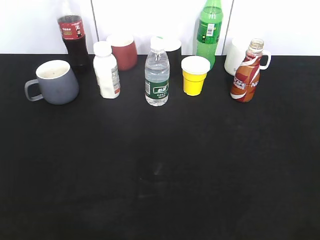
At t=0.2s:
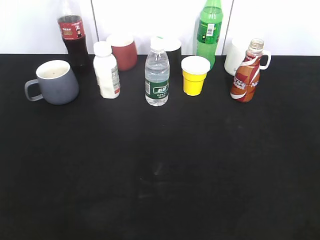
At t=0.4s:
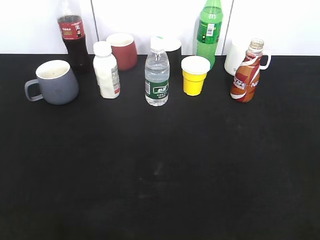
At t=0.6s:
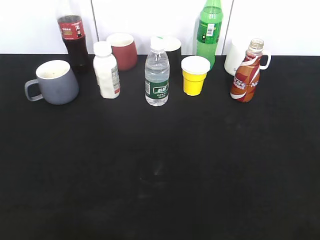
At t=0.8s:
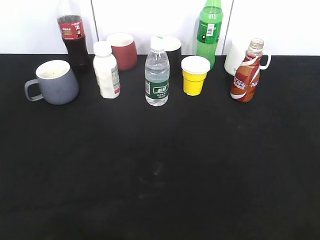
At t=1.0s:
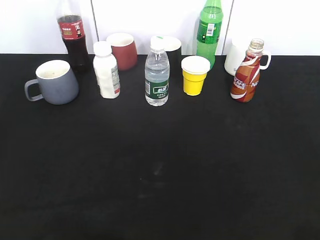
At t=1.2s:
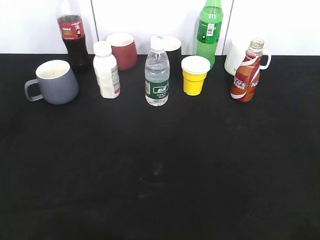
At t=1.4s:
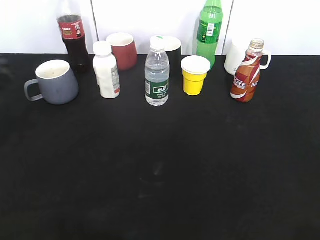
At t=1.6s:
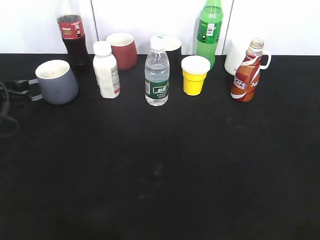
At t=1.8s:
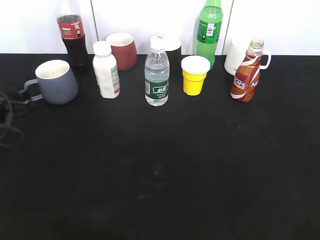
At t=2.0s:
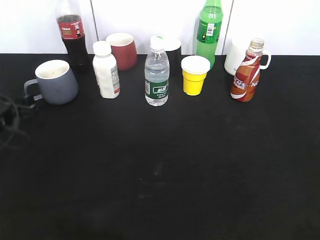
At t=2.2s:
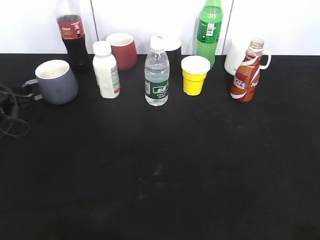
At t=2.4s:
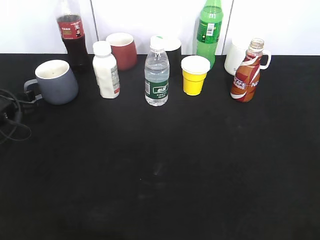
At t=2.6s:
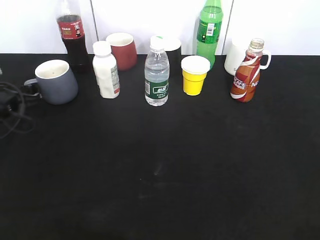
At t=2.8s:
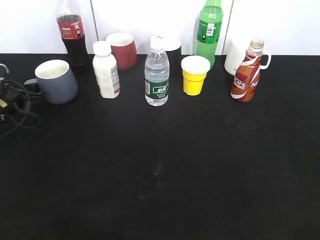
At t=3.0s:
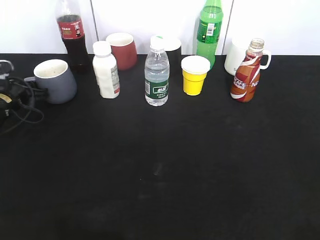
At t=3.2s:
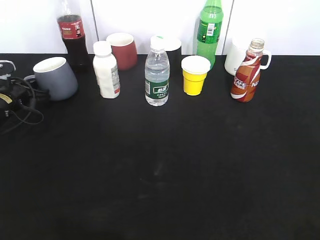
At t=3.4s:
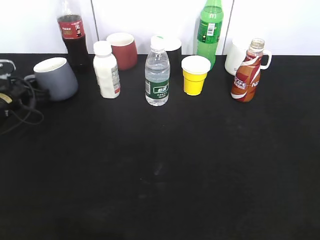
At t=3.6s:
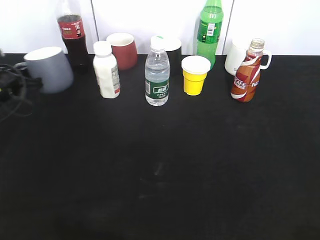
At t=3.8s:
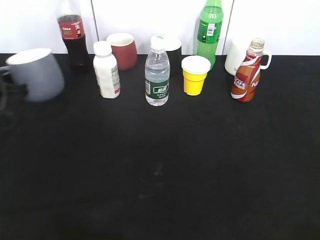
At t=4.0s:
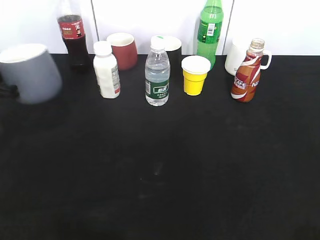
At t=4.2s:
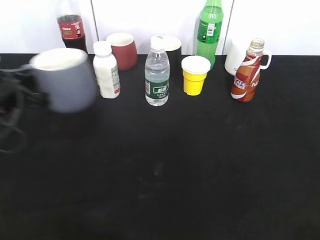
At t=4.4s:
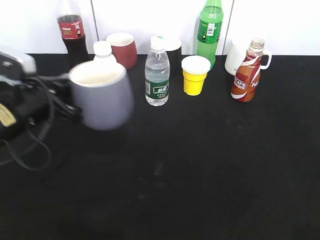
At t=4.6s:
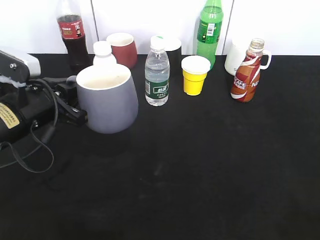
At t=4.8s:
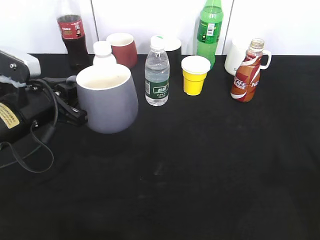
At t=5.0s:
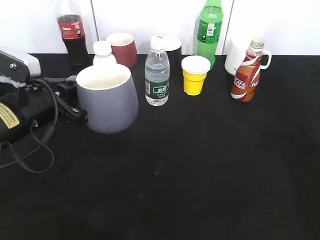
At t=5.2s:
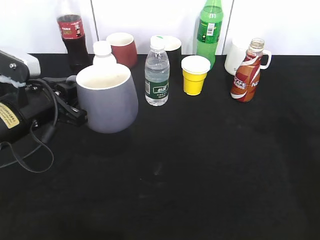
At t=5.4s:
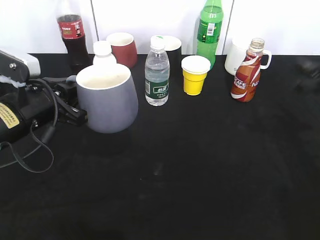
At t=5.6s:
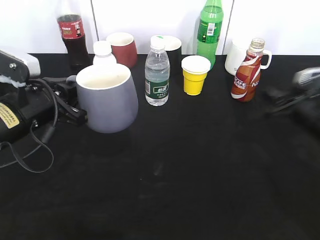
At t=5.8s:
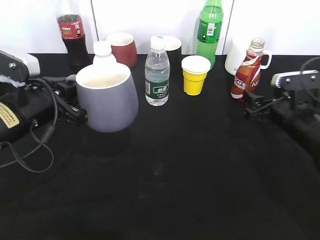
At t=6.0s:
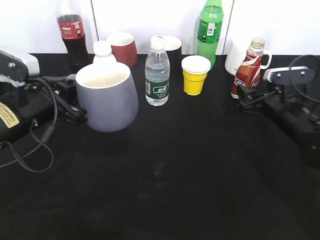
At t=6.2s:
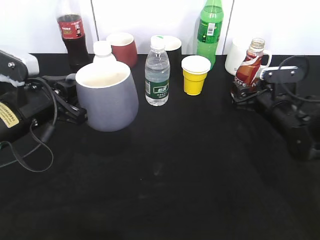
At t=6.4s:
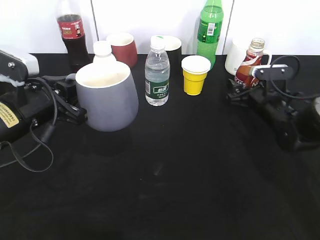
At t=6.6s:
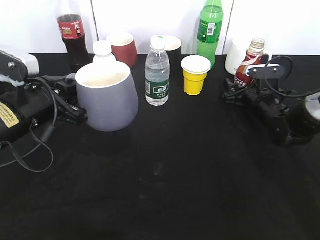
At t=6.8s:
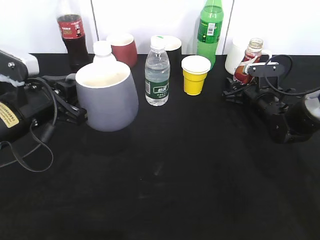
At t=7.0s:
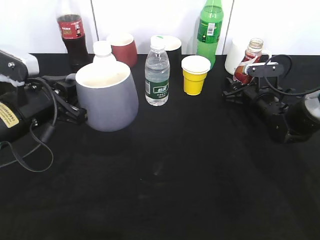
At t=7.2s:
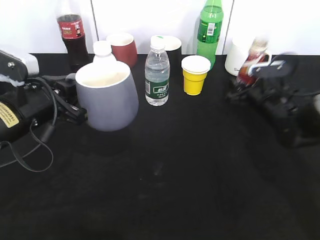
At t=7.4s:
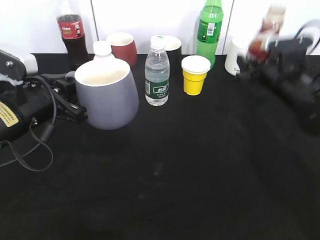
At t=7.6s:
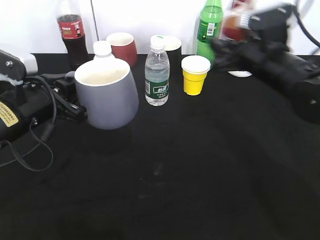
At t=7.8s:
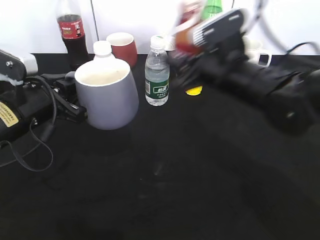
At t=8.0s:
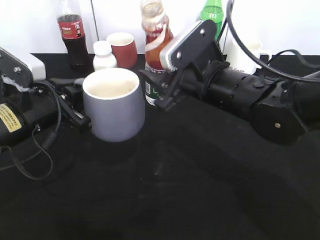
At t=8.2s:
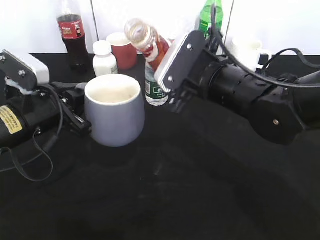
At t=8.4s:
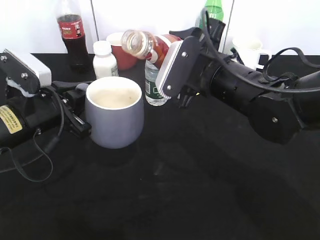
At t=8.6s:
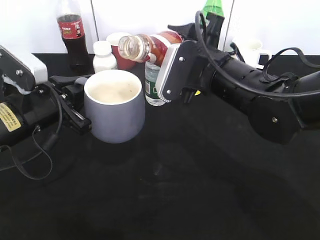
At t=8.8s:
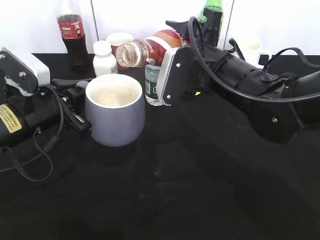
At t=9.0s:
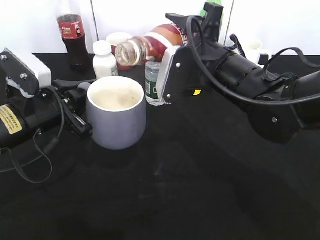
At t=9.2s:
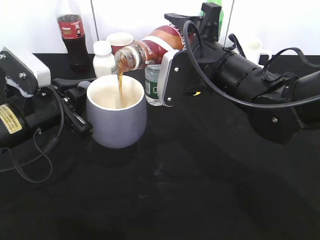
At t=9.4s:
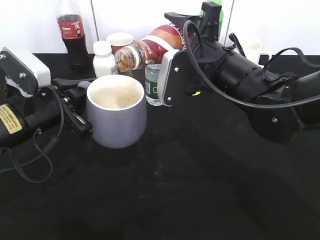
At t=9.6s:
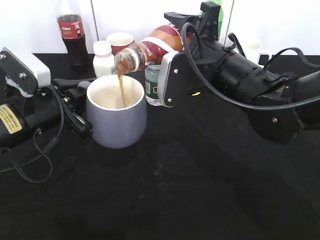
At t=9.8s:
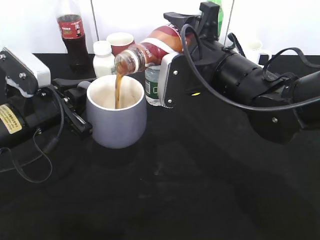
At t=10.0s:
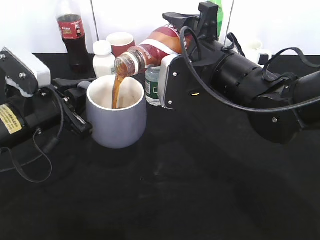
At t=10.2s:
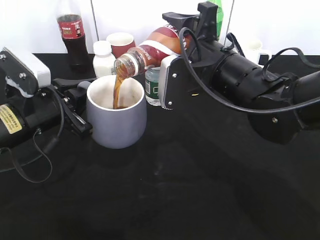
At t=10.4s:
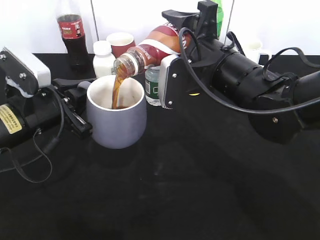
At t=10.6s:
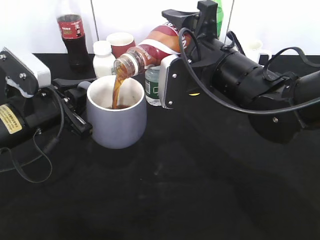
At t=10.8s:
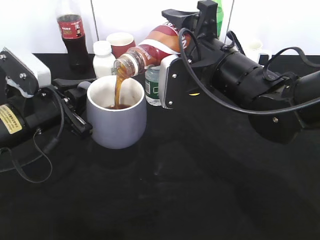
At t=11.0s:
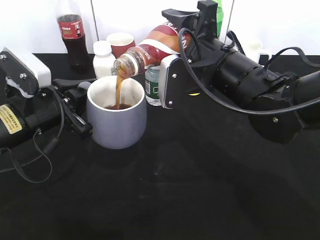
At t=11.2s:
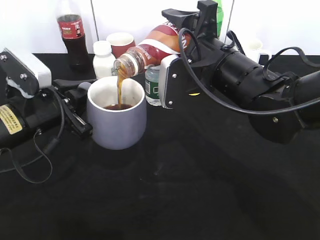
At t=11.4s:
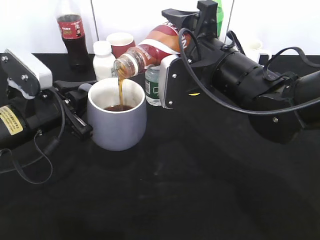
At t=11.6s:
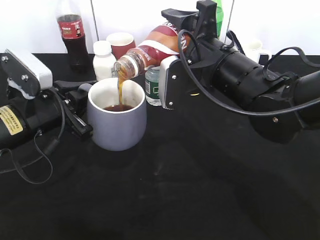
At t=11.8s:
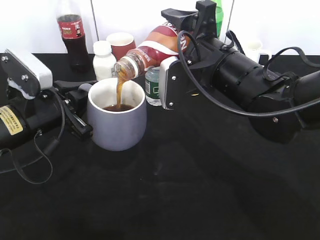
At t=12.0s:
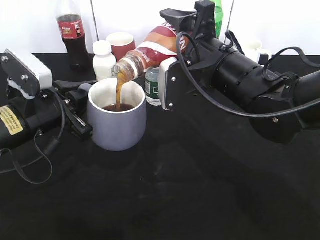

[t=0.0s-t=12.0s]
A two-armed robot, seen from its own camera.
Step, t=1.4s to t=3.2s: Grasp the grey cup with left gripper.
Step, t=3.4s to t=5.2s: Lift the grey cup with left gripper.
Step, t=5.4s to t=7.0s: Grasp the bottle with coffee with right gripper.
t=0.0s to t=1.6s: The left gripper moves forward and downward, roughly 35 cm.
t=1.6s to t=3.0s: The left gripper shifts roughly 15 cm forward and downward, and closes up.
t=3.0s to t=4.4s: The left gripper travels backward, to the right and upward by about 20 cm, and closes up.
t=4.4s to t=6.0s: The right gripper moves forward and downward, roughly 40 cm, and opens up.
t=6.0s to t=7.6s: The right gripper heads upward and to the left, covering some 15 cm, and closes its fingers.
t=7.6s to t=9.0s: The right gripper heads to the left, covering about 10 cm.
t=9.0s to t=10.4s: There are only small adjustments of the grippers.
t=10.4s to t=12.0s: The two grippers keep their place.

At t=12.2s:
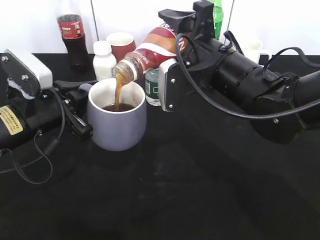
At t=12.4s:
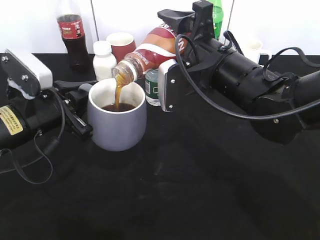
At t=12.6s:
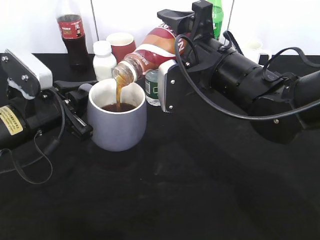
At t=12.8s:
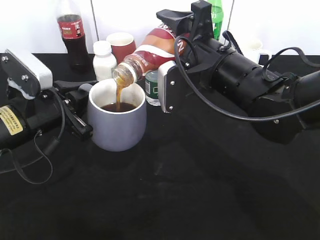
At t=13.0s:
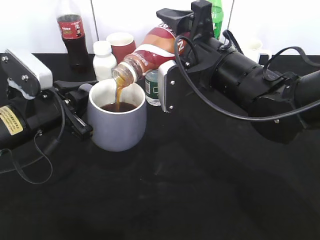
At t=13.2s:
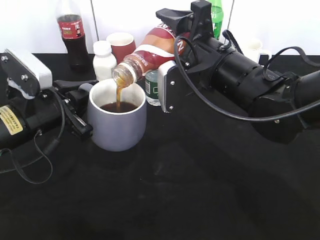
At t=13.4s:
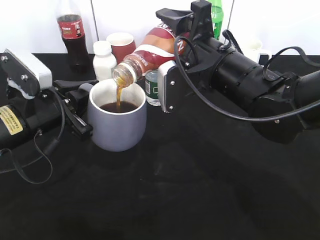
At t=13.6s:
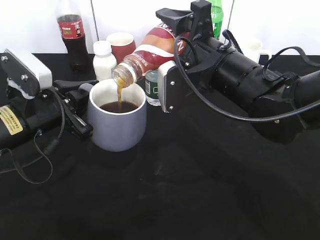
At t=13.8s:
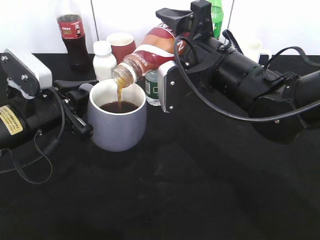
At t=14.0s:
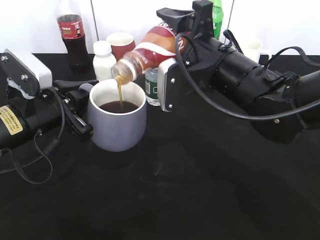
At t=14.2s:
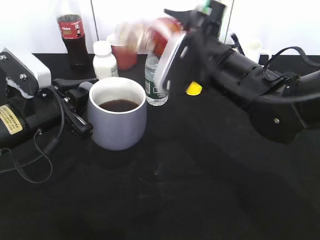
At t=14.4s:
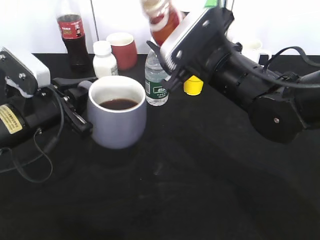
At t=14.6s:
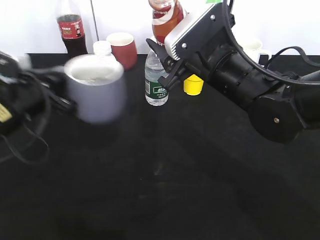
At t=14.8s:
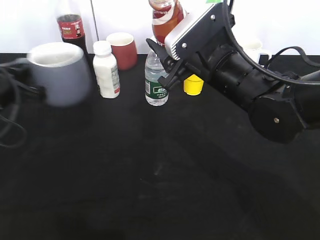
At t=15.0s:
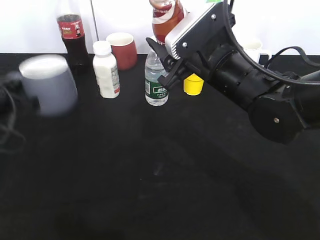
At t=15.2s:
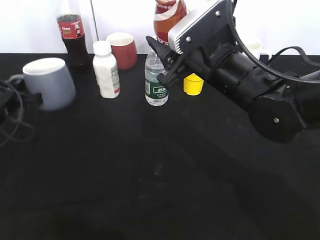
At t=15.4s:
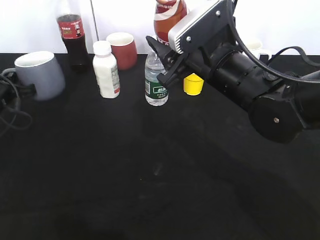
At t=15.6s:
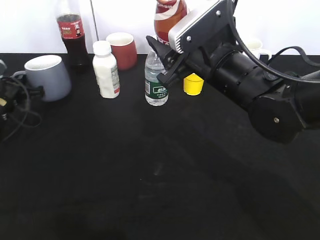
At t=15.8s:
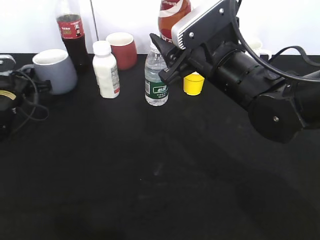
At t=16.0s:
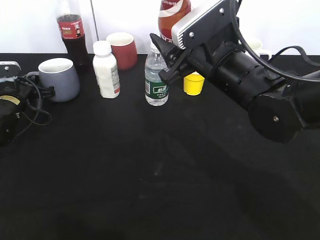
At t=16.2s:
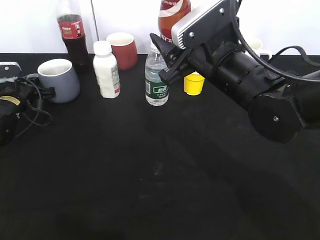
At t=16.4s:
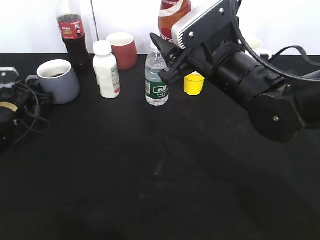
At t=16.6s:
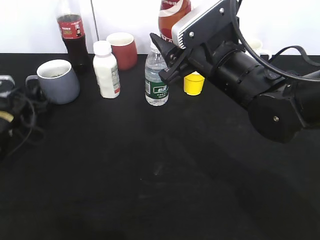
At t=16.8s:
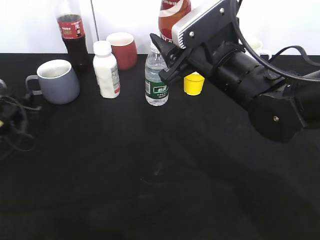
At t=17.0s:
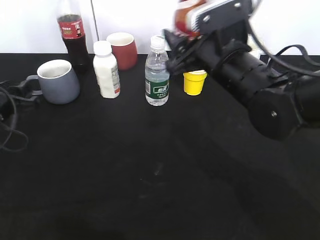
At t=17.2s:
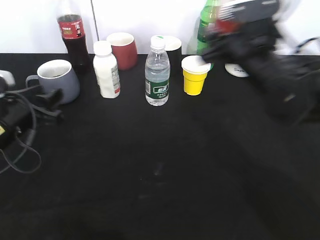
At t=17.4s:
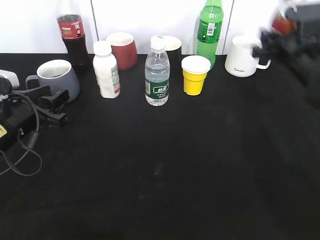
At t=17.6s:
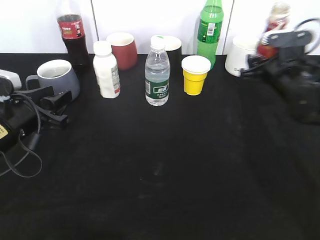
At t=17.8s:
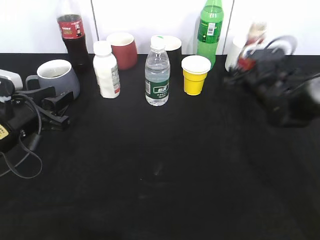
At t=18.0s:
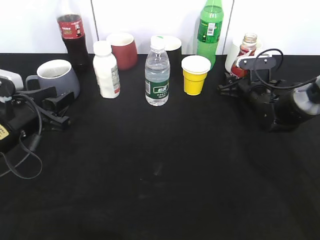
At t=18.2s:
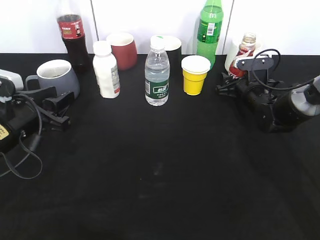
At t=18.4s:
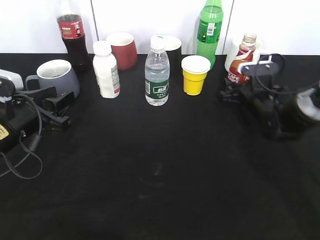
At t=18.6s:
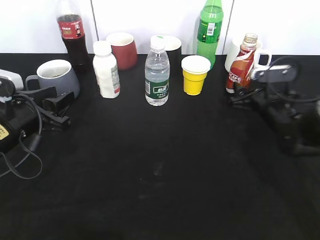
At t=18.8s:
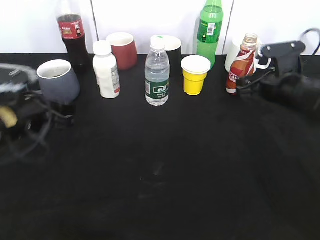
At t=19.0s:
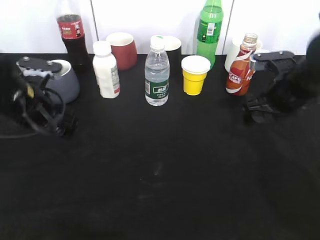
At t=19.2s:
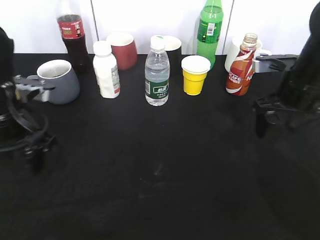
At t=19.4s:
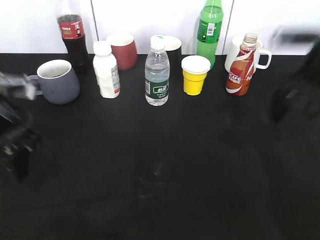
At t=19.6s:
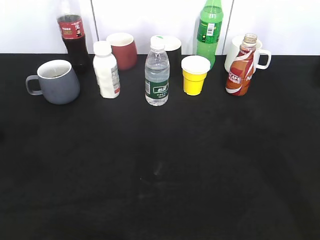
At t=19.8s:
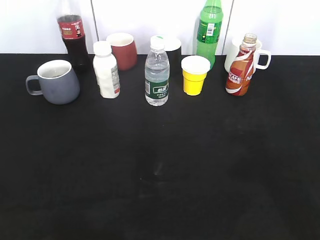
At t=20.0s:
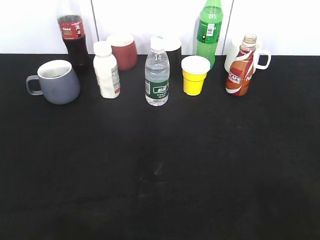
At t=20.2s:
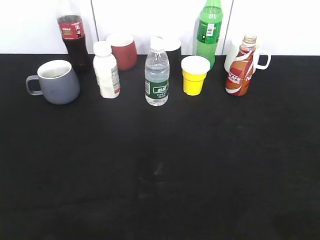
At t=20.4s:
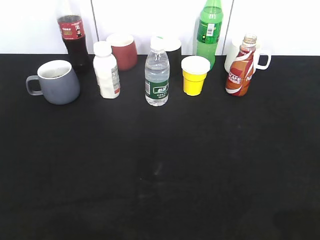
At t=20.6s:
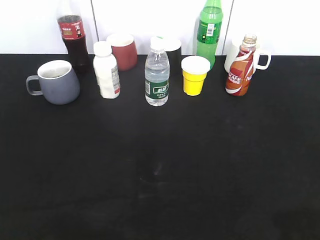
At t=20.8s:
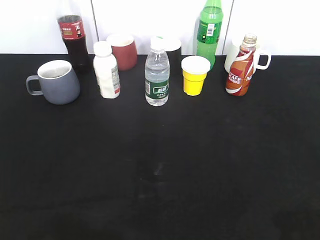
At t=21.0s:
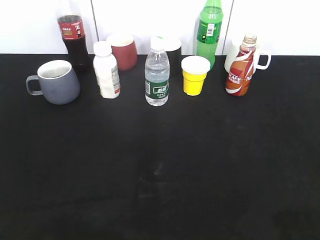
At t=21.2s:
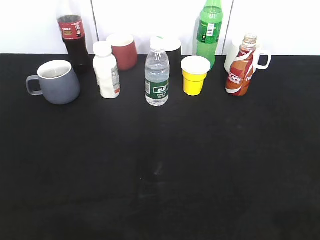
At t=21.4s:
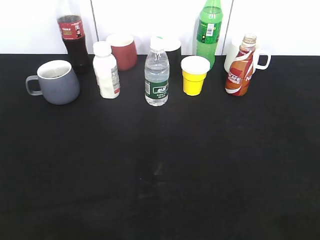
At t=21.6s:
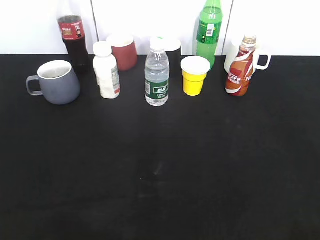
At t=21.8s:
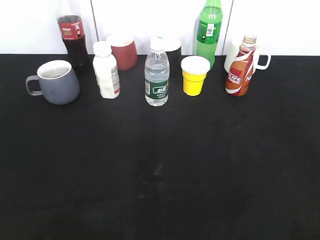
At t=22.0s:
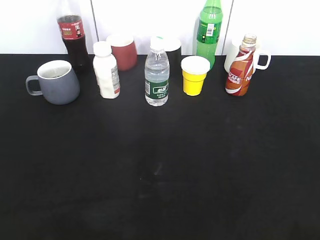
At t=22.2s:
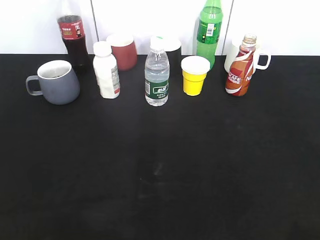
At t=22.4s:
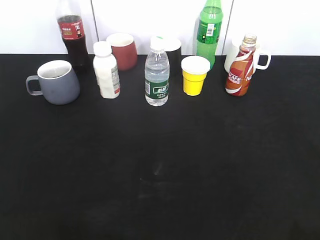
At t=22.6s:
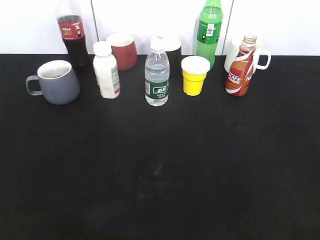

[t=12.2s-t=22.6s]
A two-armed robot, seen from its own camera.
Step, t=12.2s to t=14.2s: Pour the coffee from bottle to cup with right gripper.
Step, t=14.4s to t=16.2s: Place the grey cup on the table with left gripper.
Step, t=16.6s to t=18.2s: Place the coffee bottle on the table with right gripper.
t=12.2s to t=13.6s: Neither gripper changes place.
t=13.6s to t=15.2s: The left gripper is displaced to the left and forward by approximately 15 cm.
t=15.2s to t=16.6s: The left gripper shifts approximately 10 cm downward and forward, and opens up.
t=16.6s to t=18.2s: The left gripper heads backward, upward and to the right, covering about 15 cm. Meanwhile the right gripper heads downward, forward and to the right, covering some 25 cm, and opens its fingers.
t=18.2s to t=19.6s: The right gripper is displaced upward and backward by about 40 cm, while the left gripper shifts some 20 cm upward and backward.
t=19.6s to t=21.2s: The grippers both shift backward by about 20 cm.
